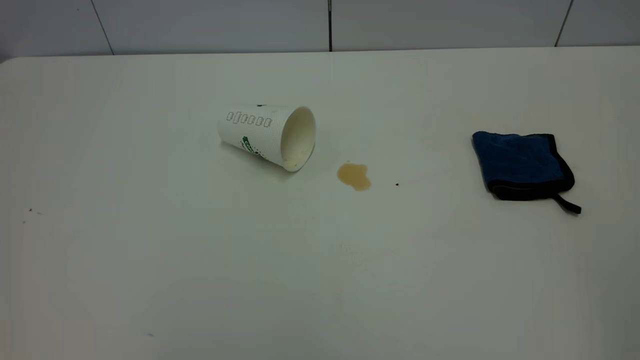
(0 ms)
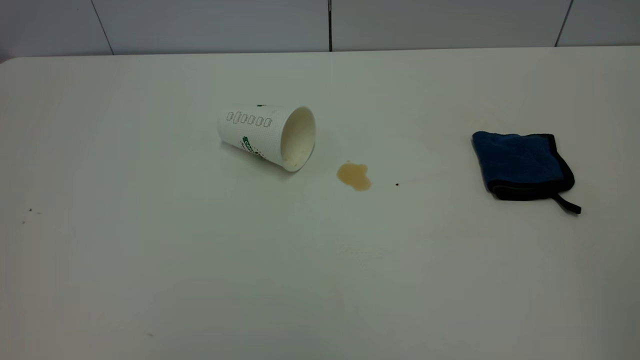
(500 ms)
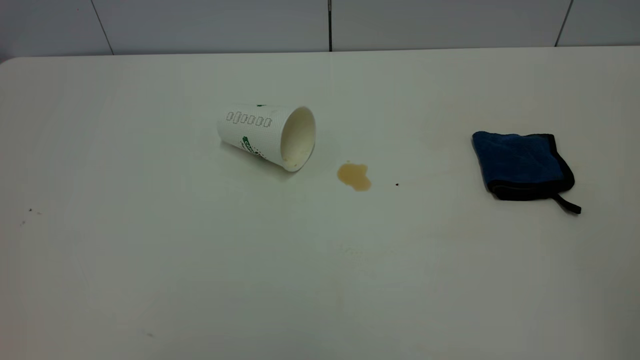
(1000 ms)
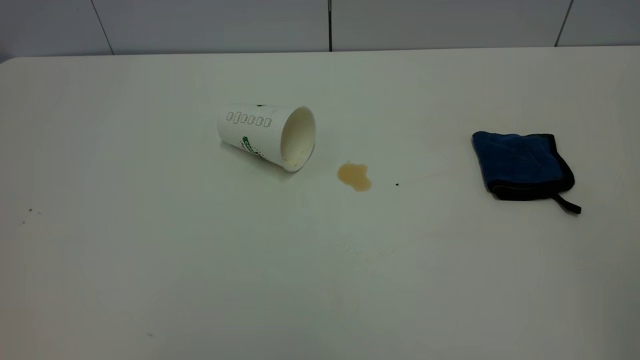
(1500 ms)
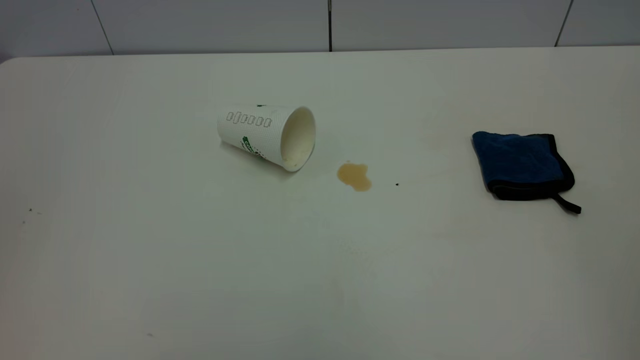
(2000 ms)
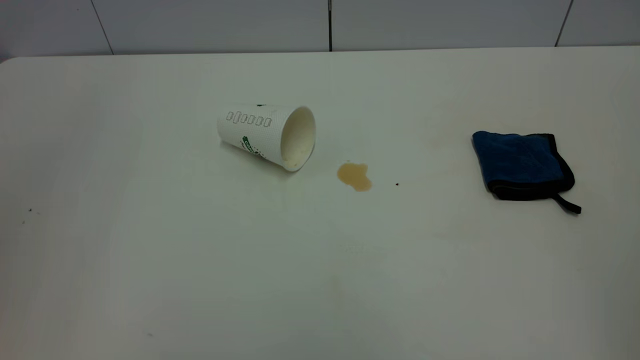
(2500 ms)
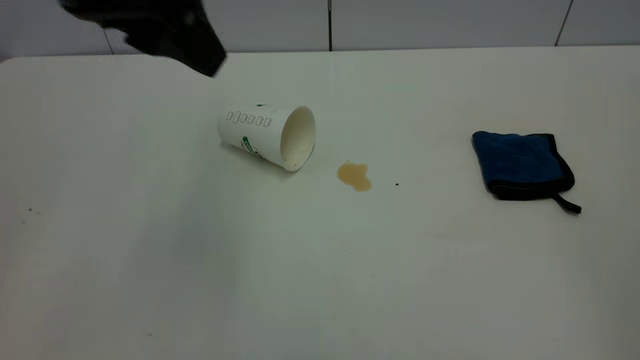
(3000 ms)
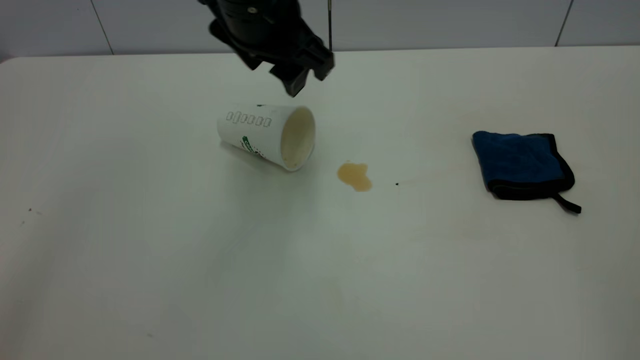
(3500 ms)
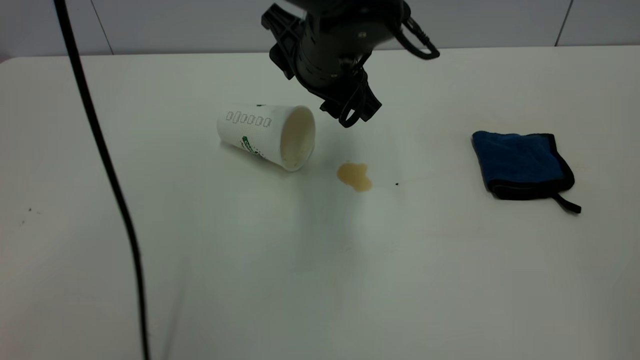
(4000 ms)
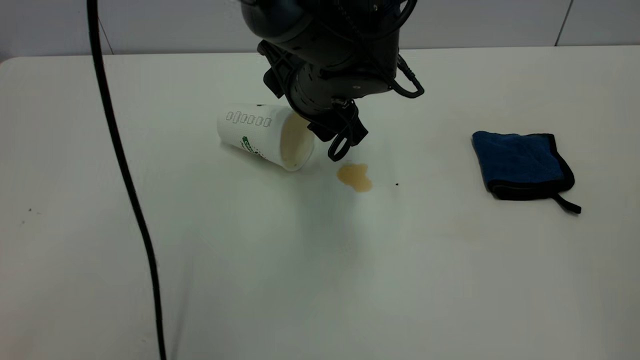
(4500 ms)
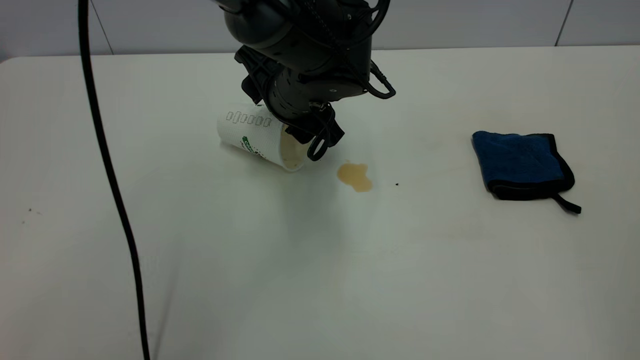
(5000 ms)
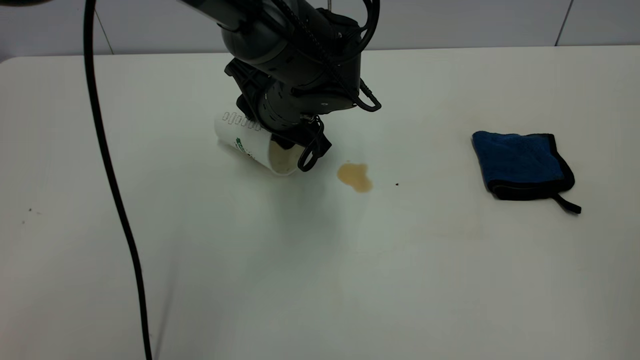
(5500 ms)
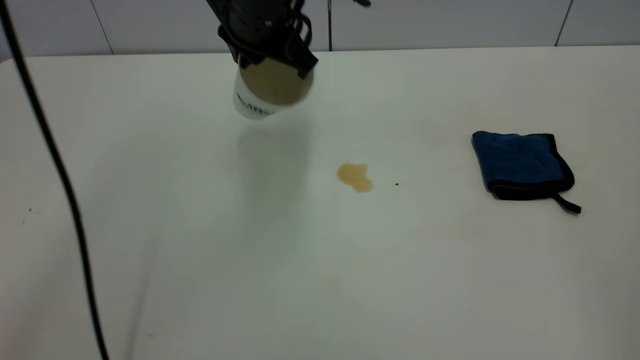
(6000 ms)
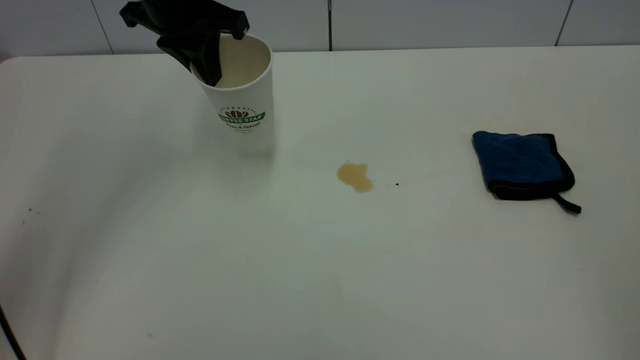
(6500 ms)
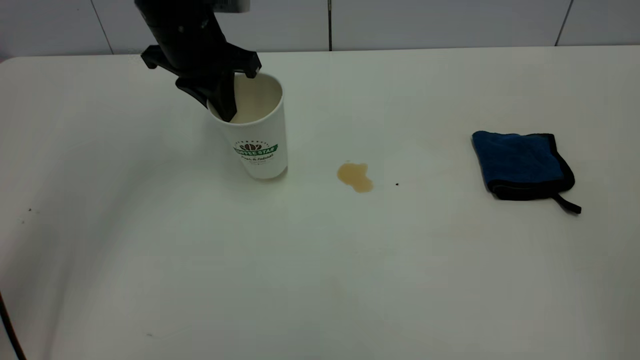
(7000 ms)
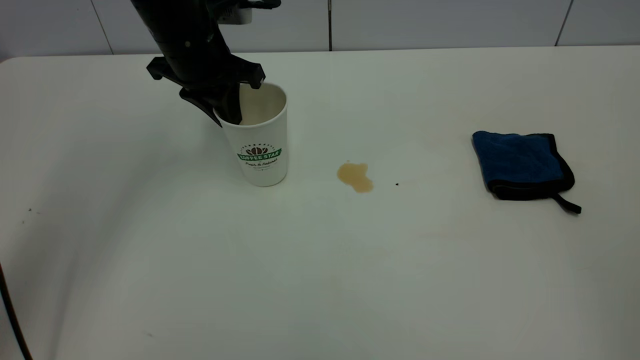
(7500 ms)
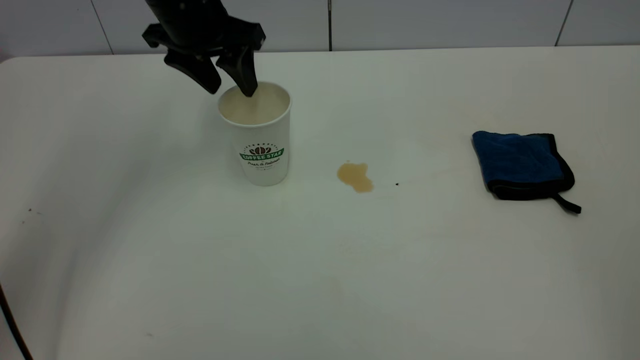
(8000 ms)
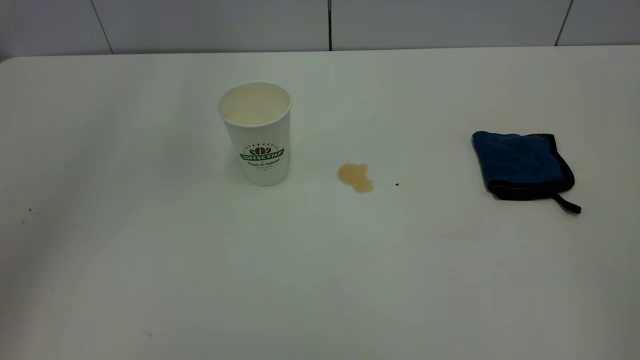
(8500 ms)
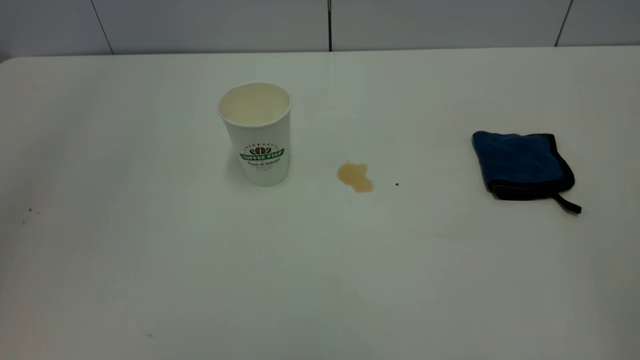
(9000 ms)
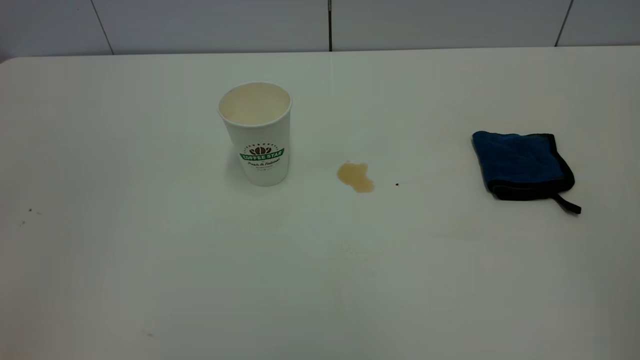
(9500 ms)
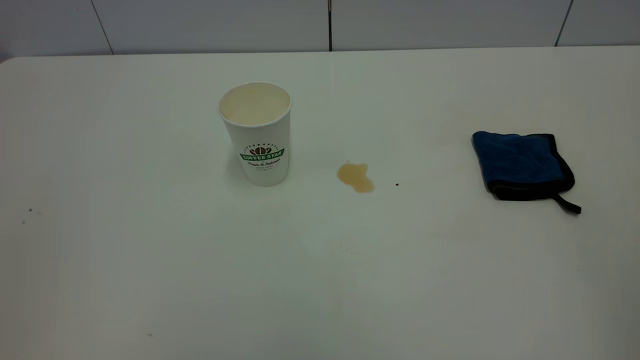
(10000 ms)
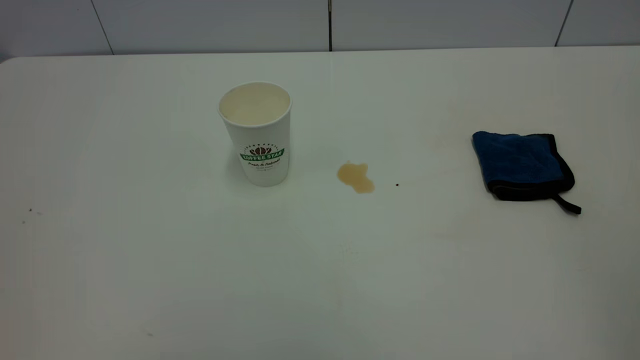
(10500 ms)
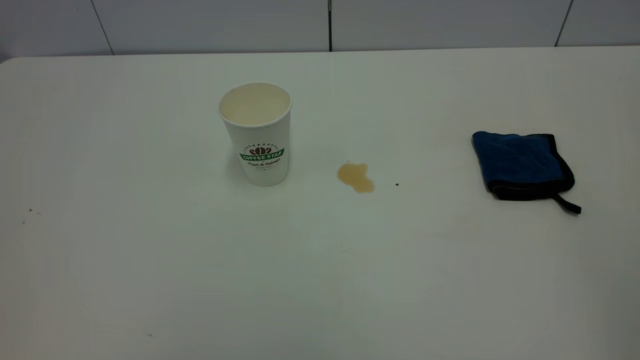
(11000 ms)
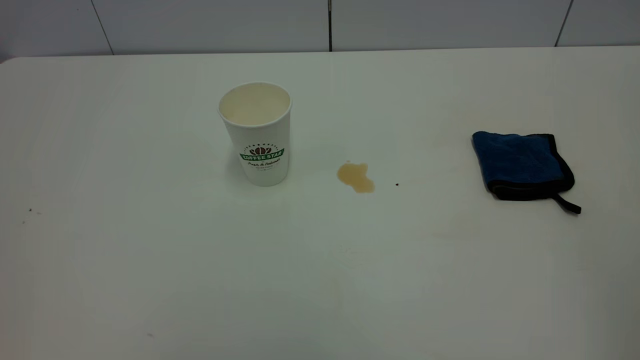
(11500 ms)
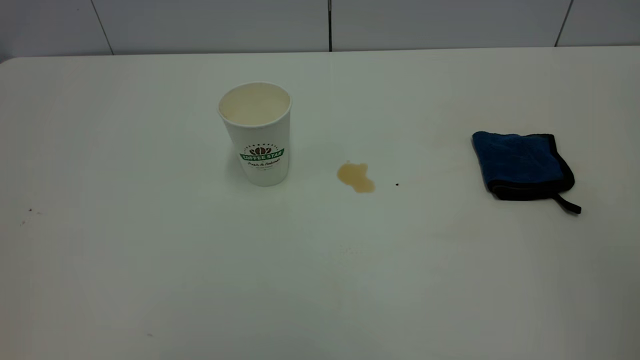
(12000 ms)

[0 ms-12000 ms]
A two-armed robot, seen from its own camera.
Task of the whole recording: the left gripper pick up the fallen cup and place it upright, the right gripper grasp the blue rag and wipe the tea stain on the table, the right gripper put the blue rag back in its original position.
Step, 0 ms to 8000 ms: Stand the paper cup upright.
2000 ms to 4000 ms: The left gripper is displaced to the right, forward and downward by some 50 cm.
4000 ms to 6000 ms: The left gripper is displaced to the left and upward by approximately 10 cm, and closes.
6000 ms to 8000 ms: The left gripper travels to the left by some 10 cm, and opens.
8000 ms to 10000 ms: The left gripper travels backward by some 40 cm.

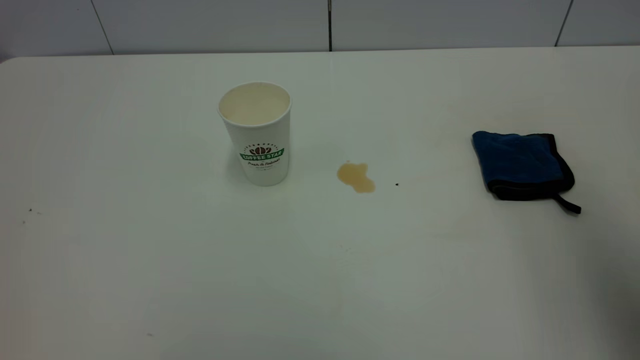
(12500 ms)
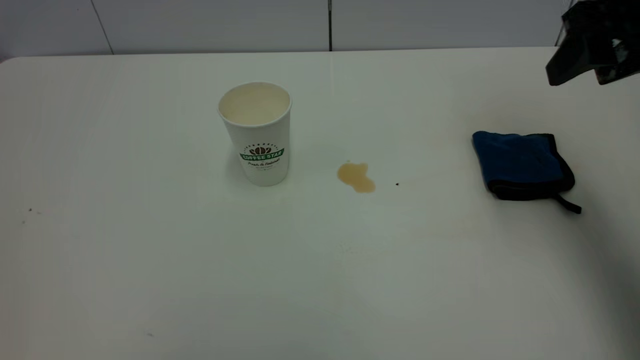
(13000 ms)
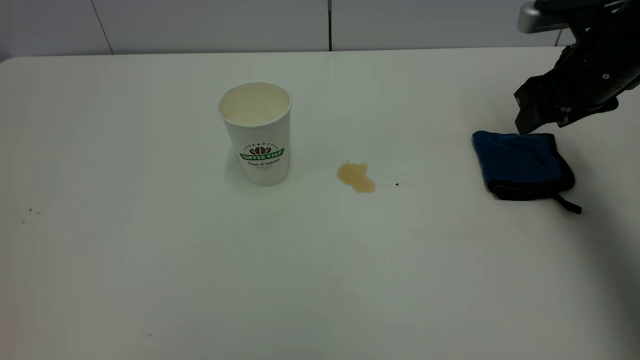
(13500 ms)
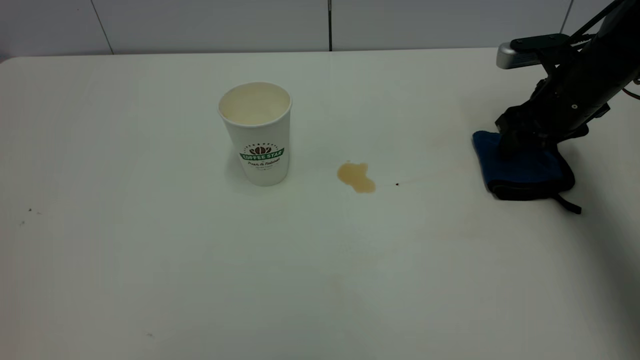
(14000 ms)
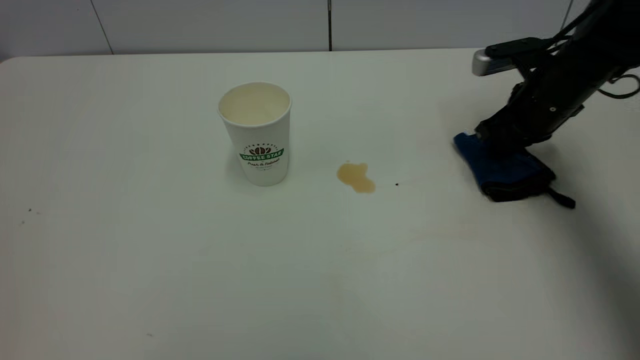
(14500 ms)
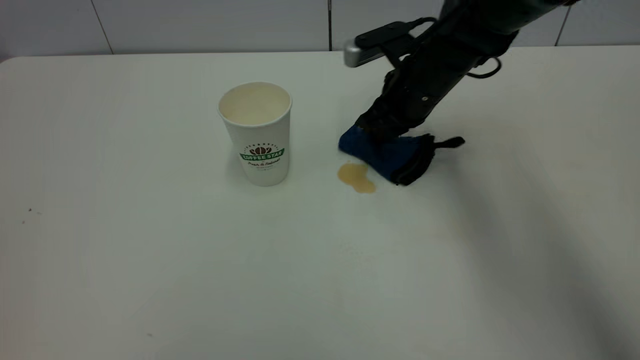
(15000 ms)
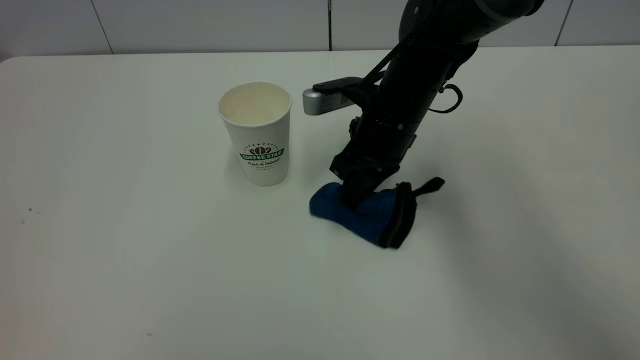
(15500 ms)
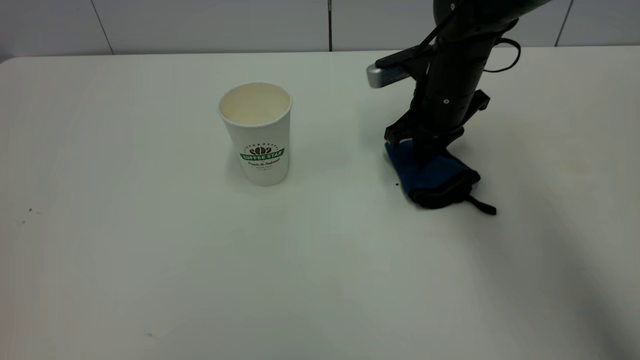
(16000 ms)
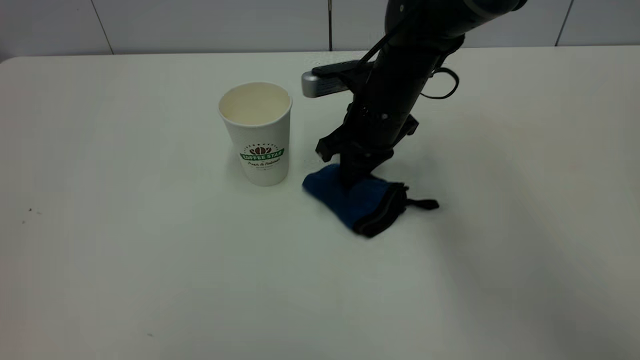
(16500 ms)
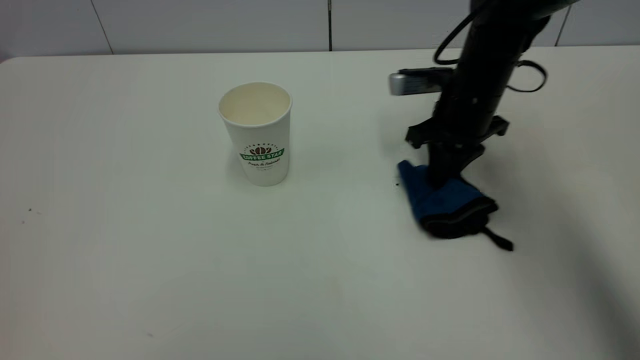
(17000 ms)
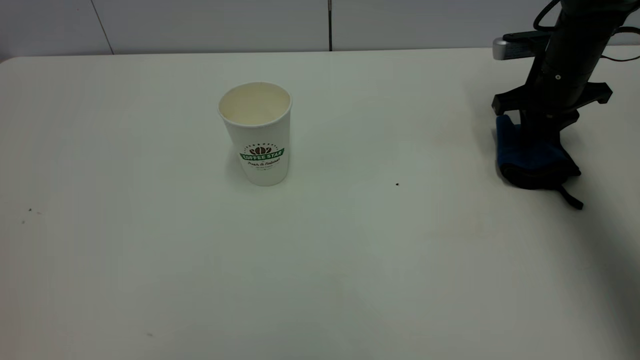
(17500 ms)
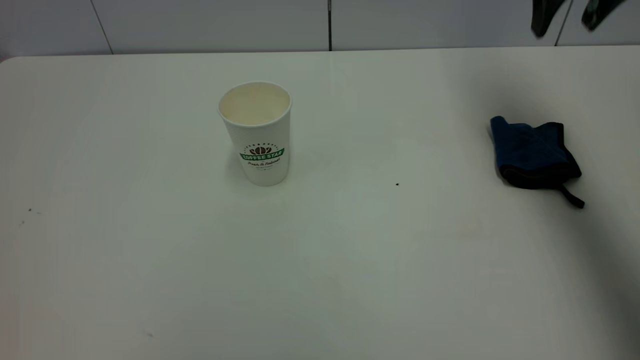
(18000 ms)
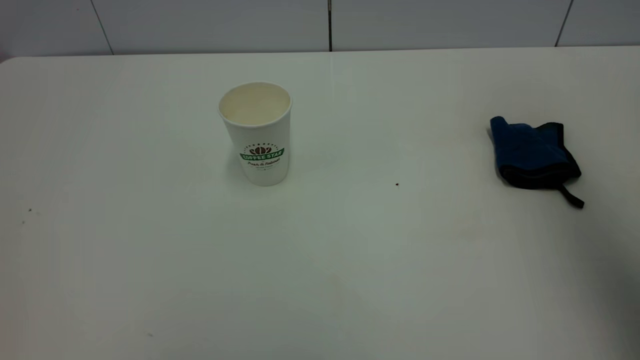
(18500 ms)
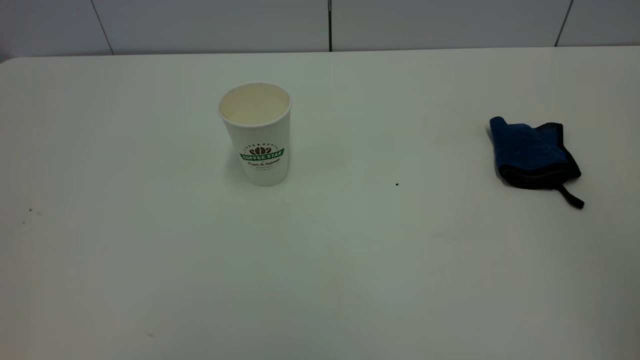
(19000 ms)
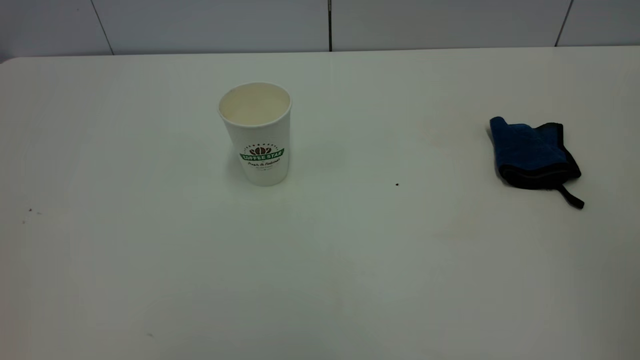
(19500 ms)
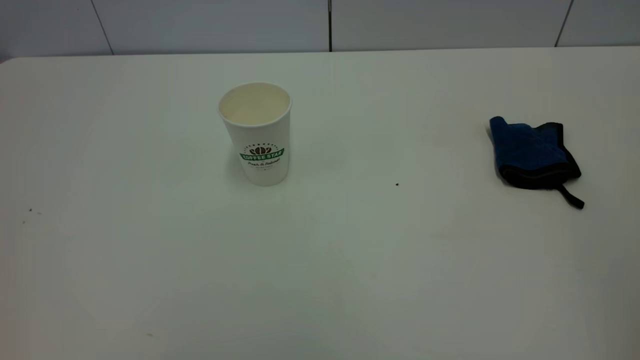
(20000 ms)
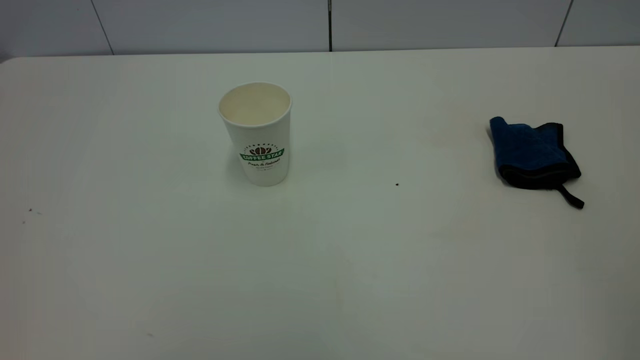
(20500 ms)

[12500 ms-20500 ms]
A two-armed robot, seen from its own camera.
Task of the whole recording: the left gripper pick up the fallen cup and place it upright, the right gripper grasp the blue rag and wipe the tea stain on the table, the right gripper put the blue rag back in its original position.
Step, 12500 ms to 17500 ms: Wipe the stains off the table with a rag.
12500 ms to 14500 ms: The right gripper shifts approximately 35 cm forward and downward, and closes.
14500 ms to 16500 ms: The right gripper swings left and right, approximately 20 cm each way, with 2 reversals.
16500 ms to 18500 ms: The right gripper moves upward, backward and to the right, some 40 cm, and opens its fingers.
18500 ms to 20500 ms: The right gripper heads backward, covering some 25 cm.
